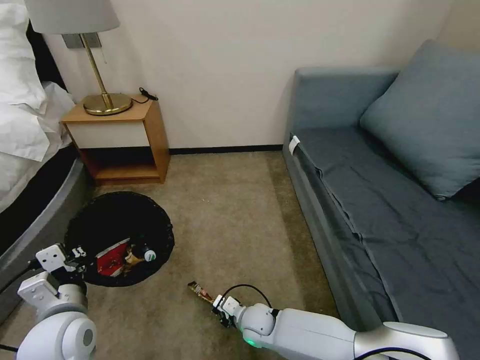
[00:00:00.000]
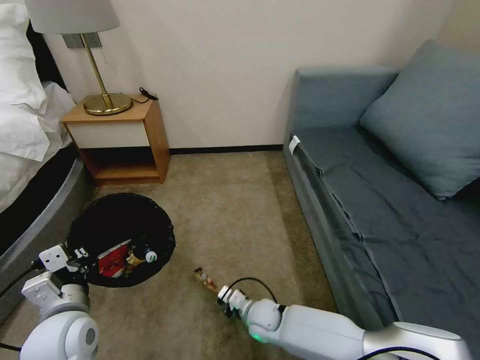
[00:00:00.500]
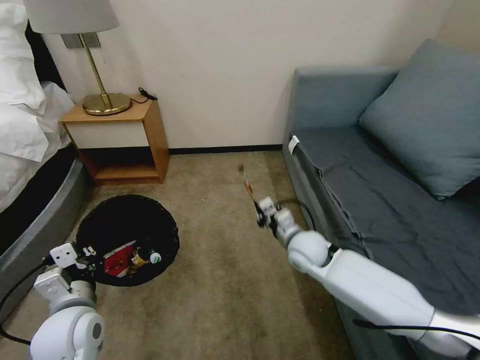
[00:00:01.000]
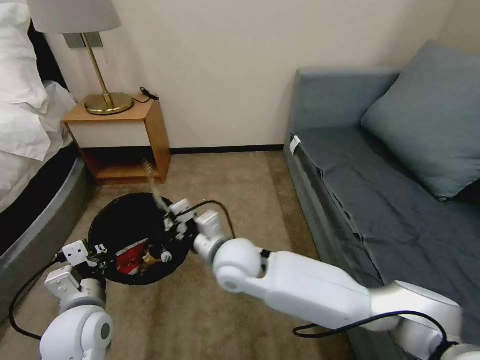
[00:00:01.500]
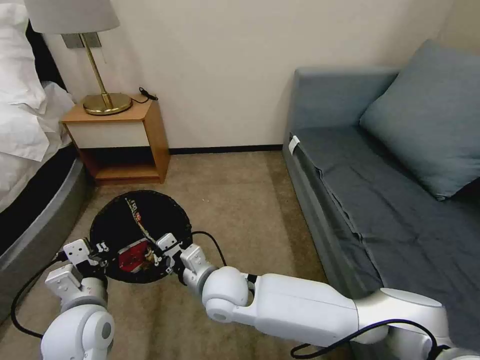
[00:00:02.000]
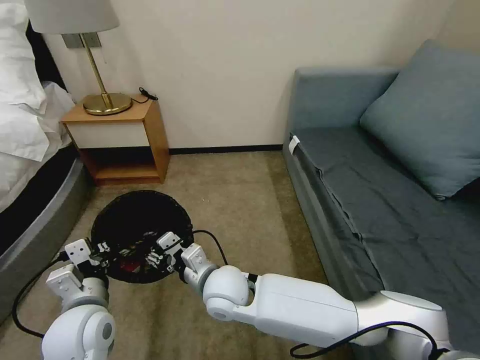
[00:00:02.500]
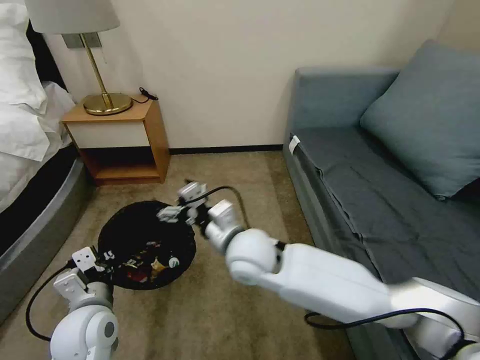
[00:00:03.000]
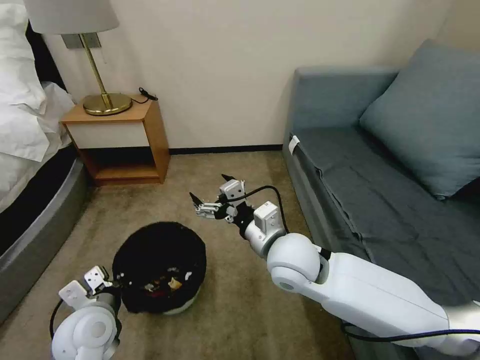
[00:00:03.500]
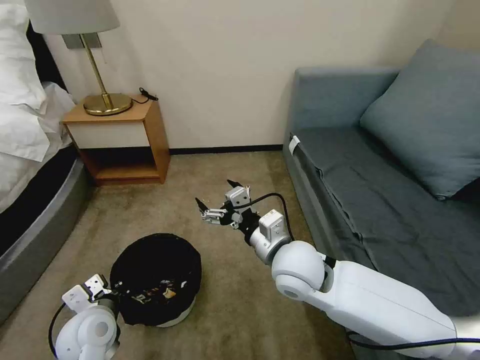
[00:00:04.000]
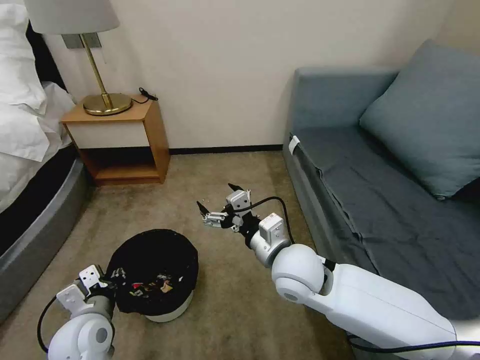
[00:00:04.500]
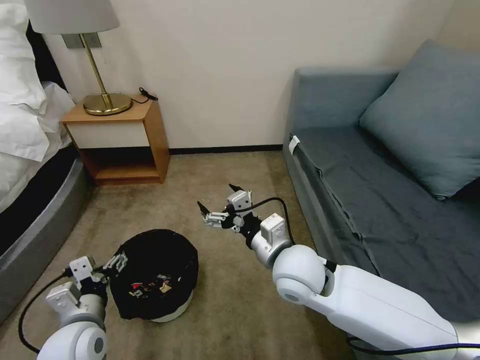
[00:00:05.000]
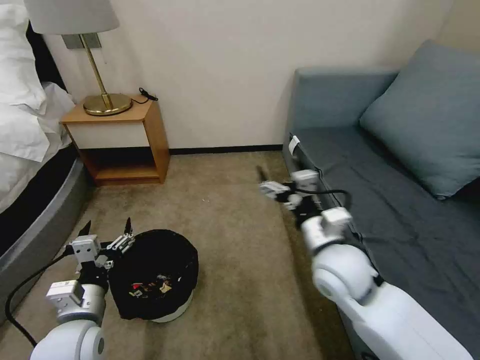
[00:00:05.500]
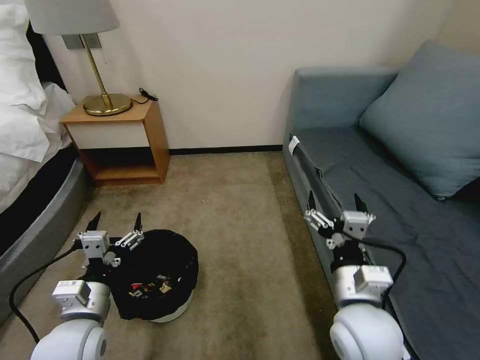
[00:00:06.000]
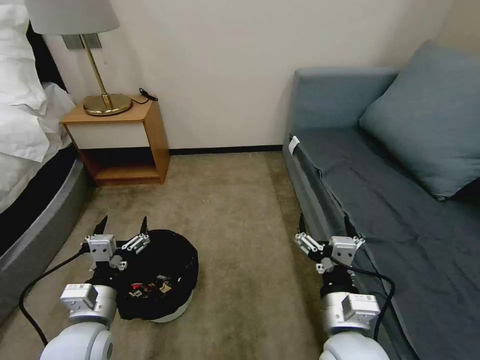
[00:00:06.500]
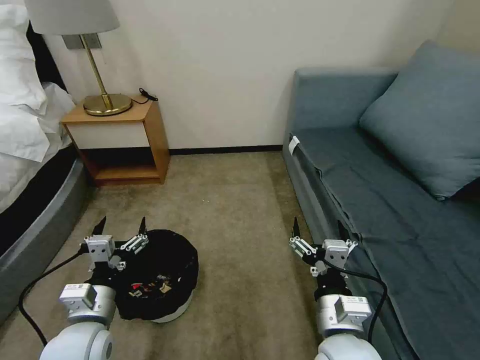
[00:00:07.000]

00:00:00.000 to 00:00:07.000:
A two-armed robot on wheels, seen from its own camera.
Task of the whole recording: Pick up the trash bin, then pick up the garbage on the floor and place it into the trash bin.
00:00:00.000 to 00:00:02.000: The right gripper moves upward, about 20 cm.
00:00:02.000 to 00:00:03.500: The right gripper moves to the right and upward, some 15 cm, and opens.
00:00:03.500 to 00:00:05.000: The left gripper opens up.
00:00:05.000 to 00:00:07.000: The right gripper is displaced backward and to the right by about 15 cm.
